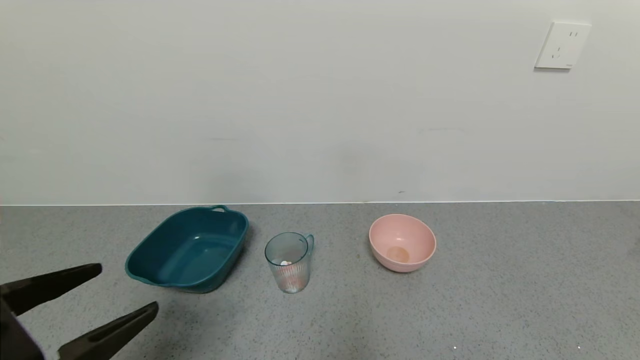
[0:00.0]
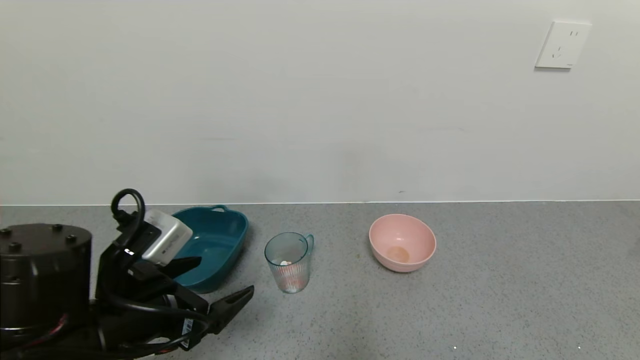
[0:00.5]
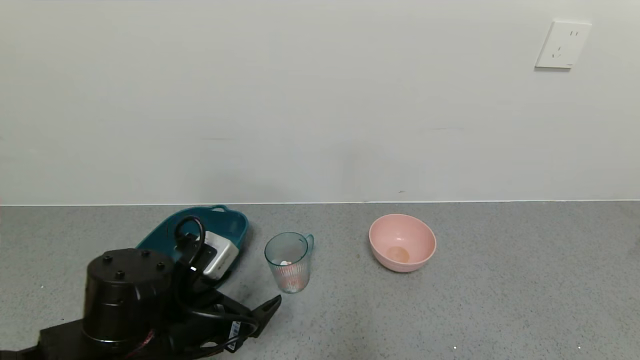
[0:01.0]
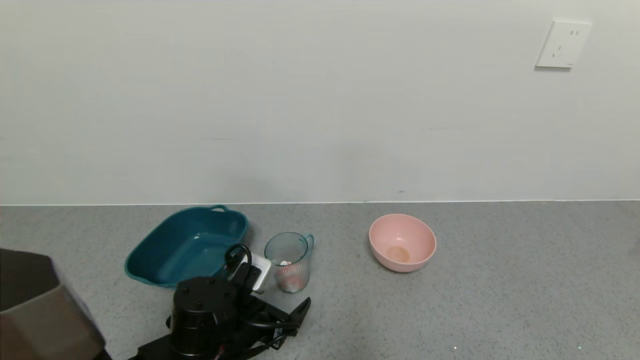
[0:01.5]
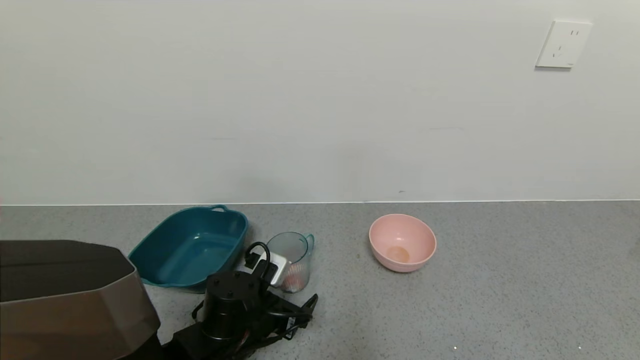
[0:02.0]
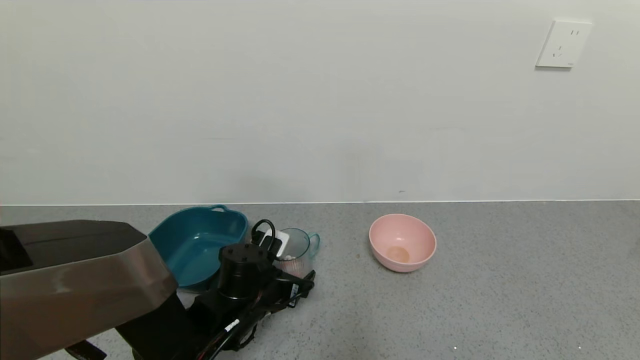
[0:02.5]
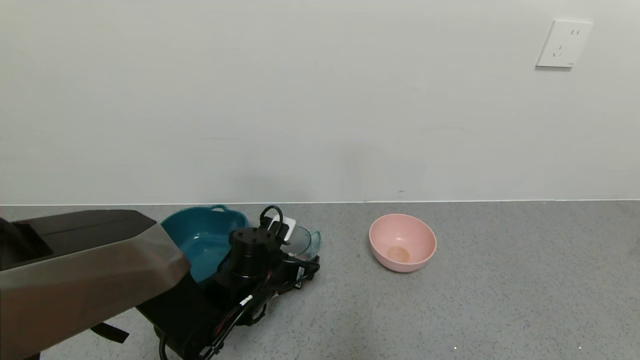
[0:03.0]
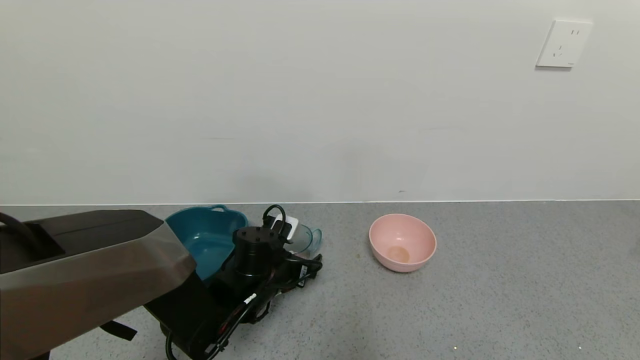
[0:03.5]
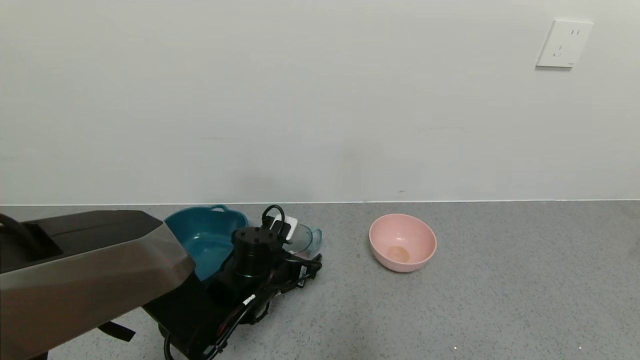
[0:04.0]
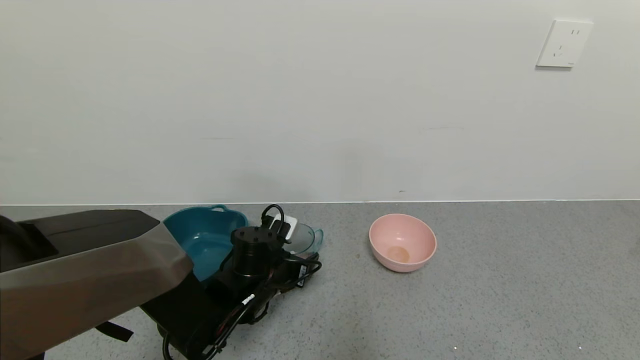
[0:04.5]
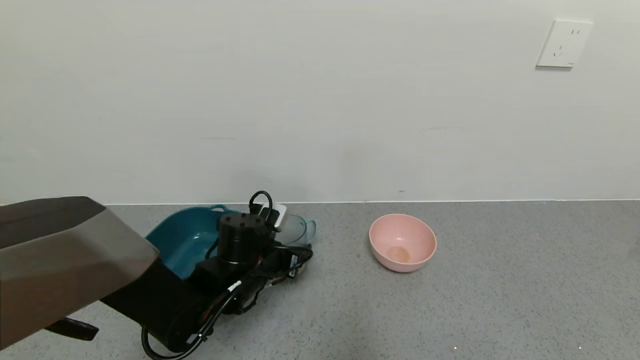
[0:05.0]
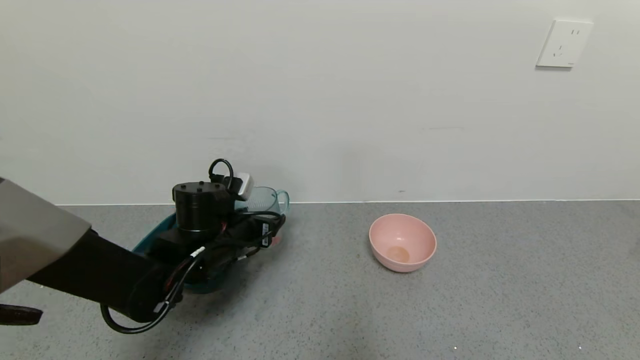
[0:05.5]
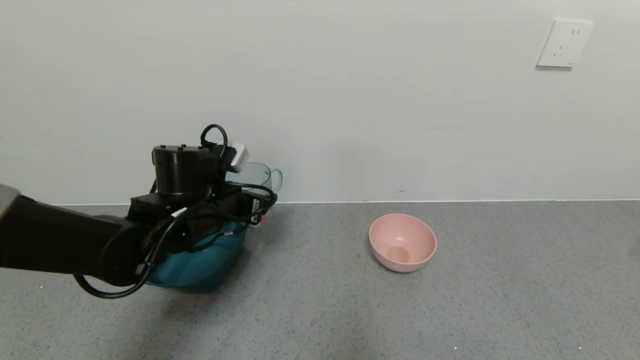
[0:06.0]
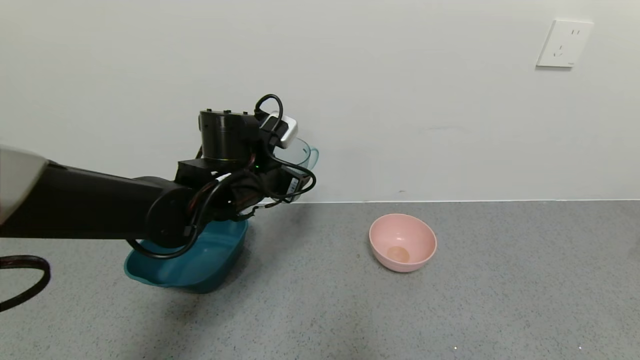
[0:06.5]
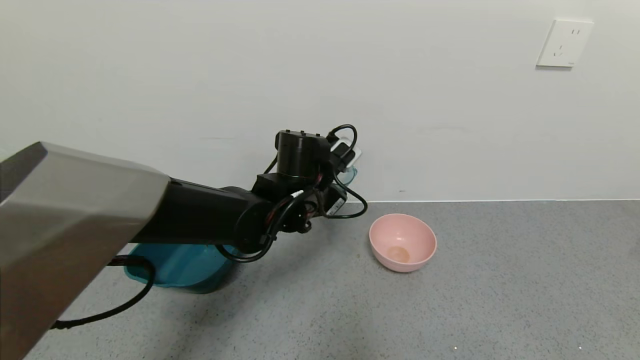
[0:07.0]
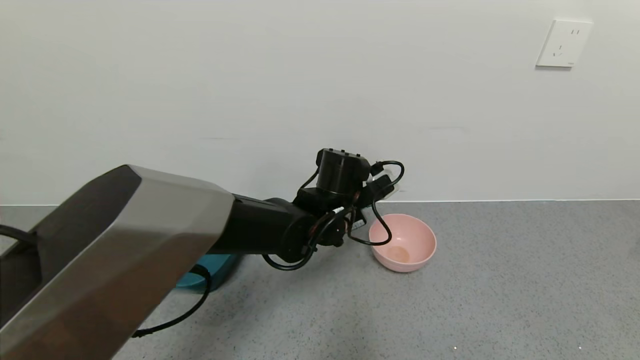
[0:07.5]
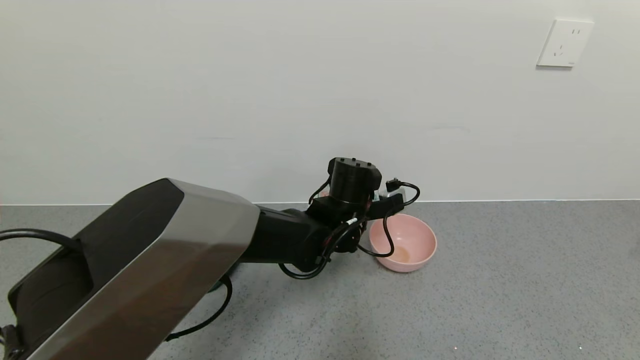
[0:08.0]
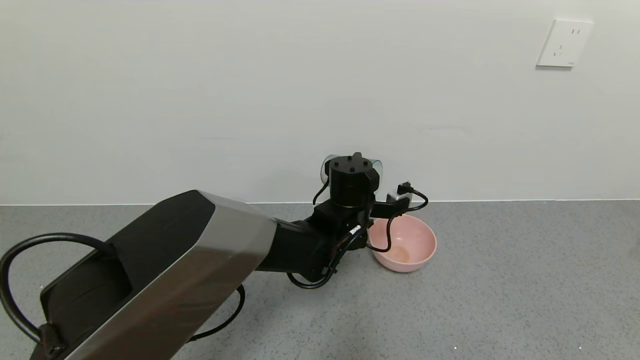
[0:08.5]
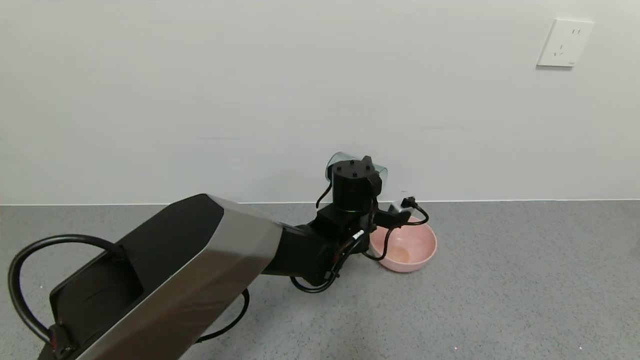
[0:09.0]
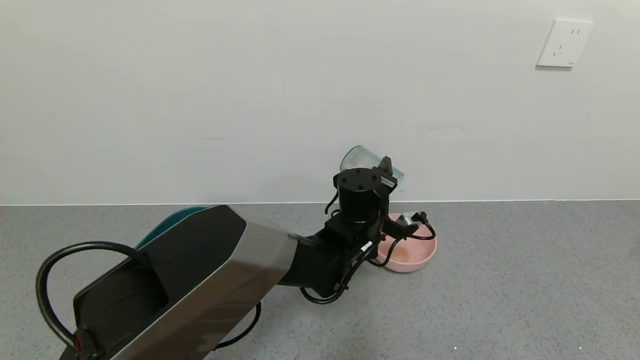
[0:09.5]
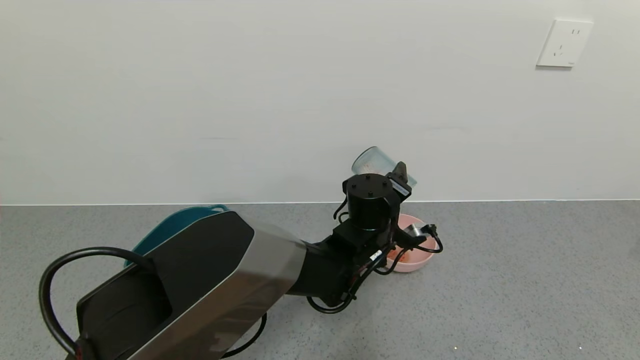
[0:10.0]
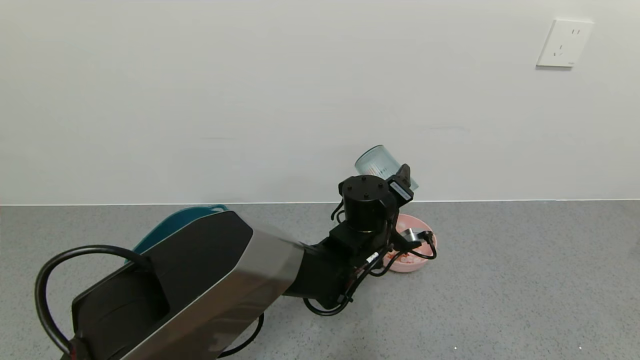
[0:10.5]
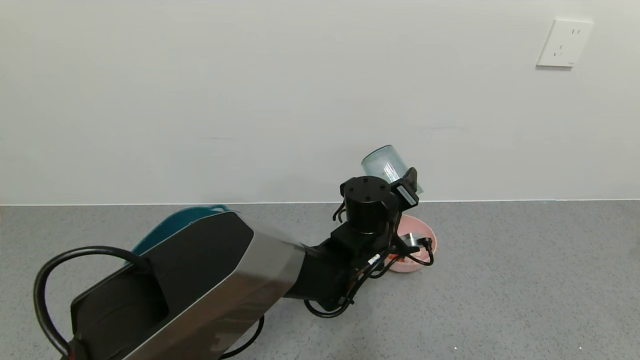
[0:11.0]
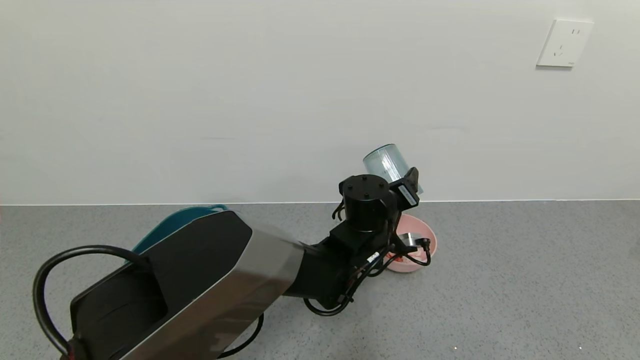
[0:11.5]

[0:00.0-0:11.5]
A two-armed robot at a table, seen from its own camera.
Task of the whole recording: use a gripper to pick up the cup and pour the solid into a bowl or tray.
Step, 0:00.0 to 0:04.0: Grasp the glass of shrimp with the left gripper.
0:00.0 to 0:02.0: The left gripper goes about 25 cm downward, to the right and forward.
0:02.0 to 0:04.0: The left gripper moves forward, roughly 10 cm, and closes.
0:04.0 to 0:06.0: The left gripper shifts some 15 cm upward and to the left, and closes.
0:06.0 to 0:07.5: The left gripper shifts some 20 cm to the right.
